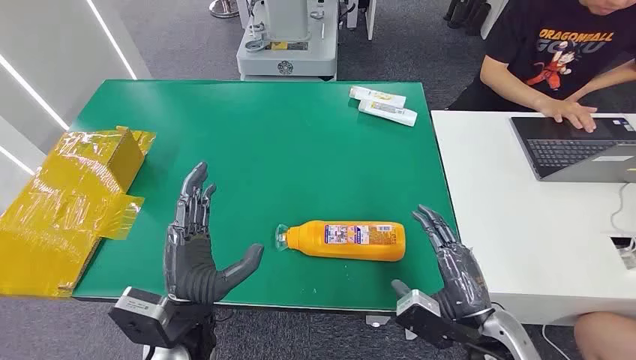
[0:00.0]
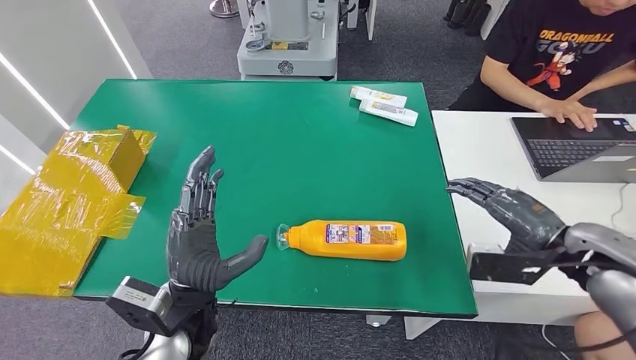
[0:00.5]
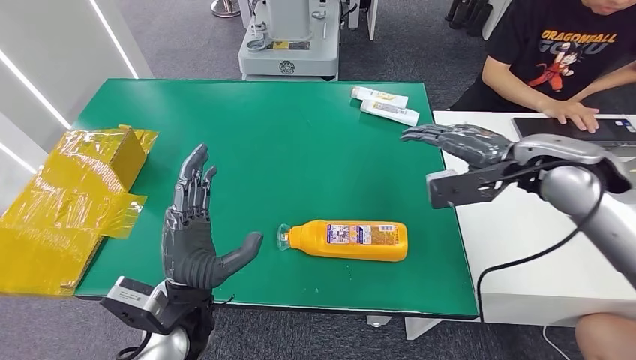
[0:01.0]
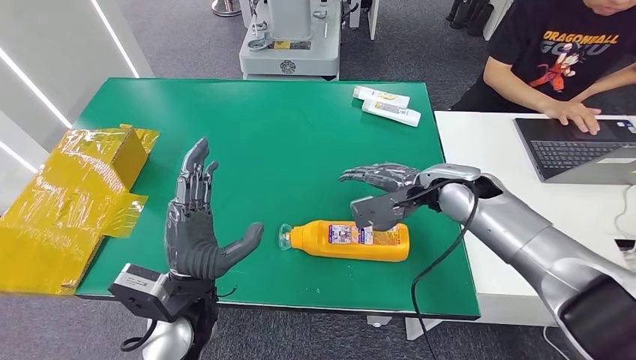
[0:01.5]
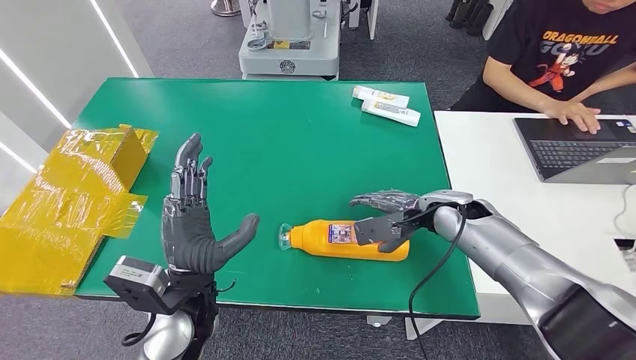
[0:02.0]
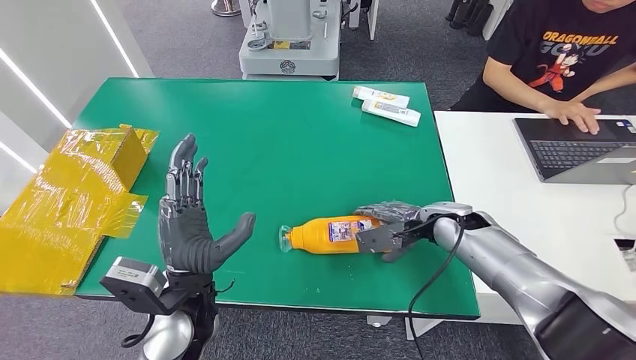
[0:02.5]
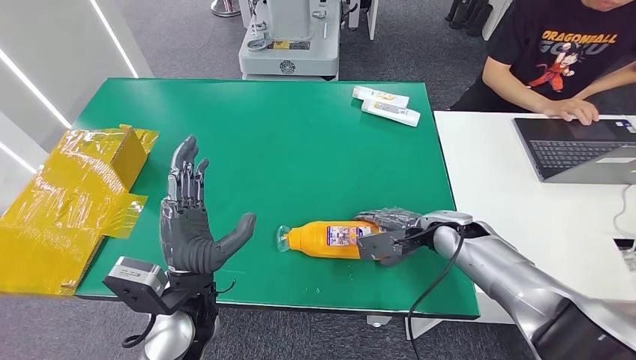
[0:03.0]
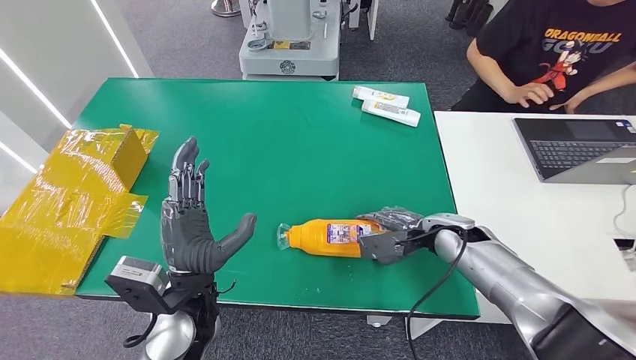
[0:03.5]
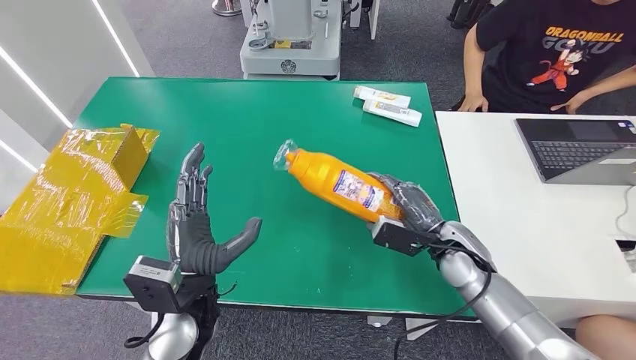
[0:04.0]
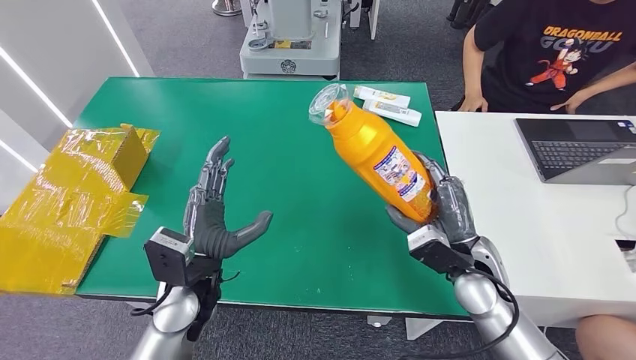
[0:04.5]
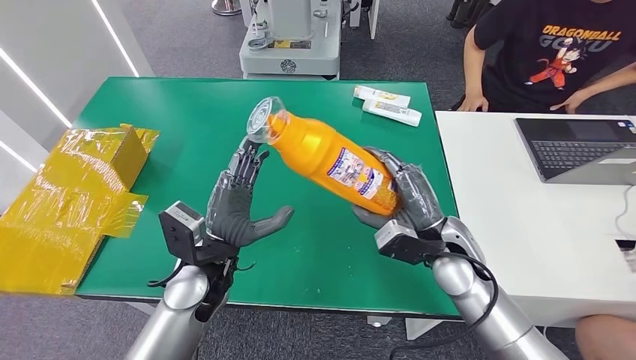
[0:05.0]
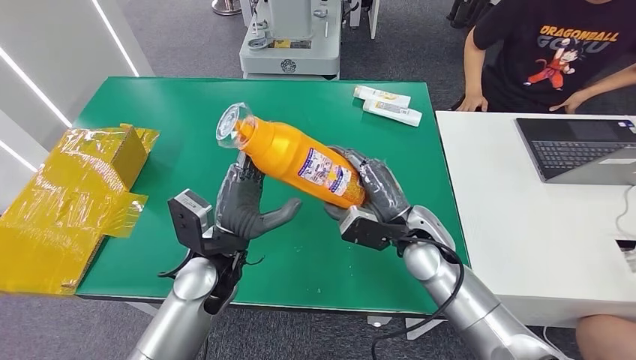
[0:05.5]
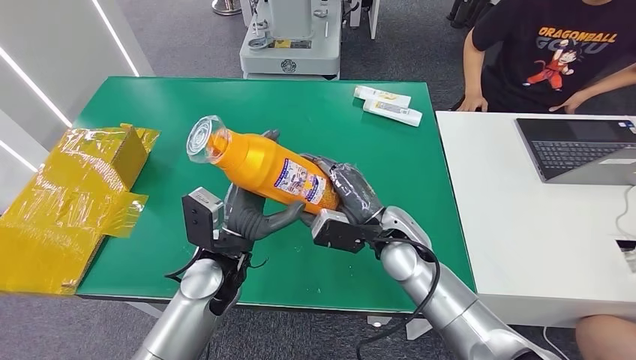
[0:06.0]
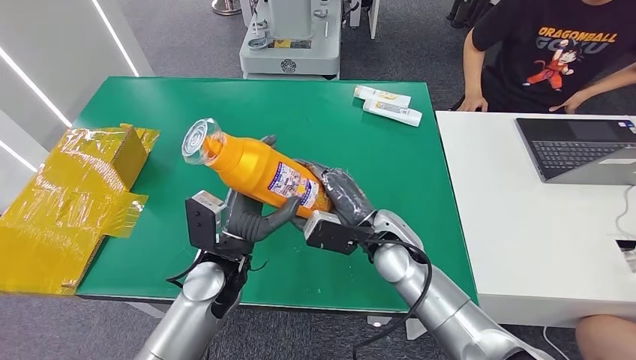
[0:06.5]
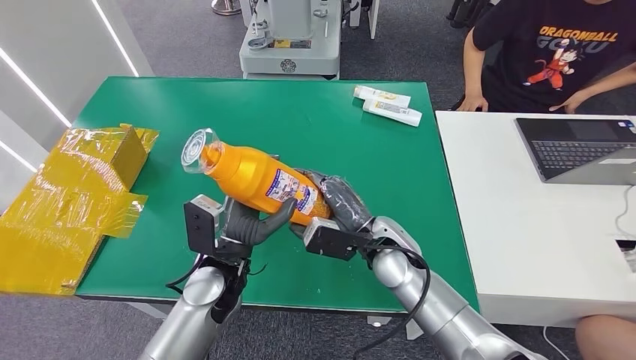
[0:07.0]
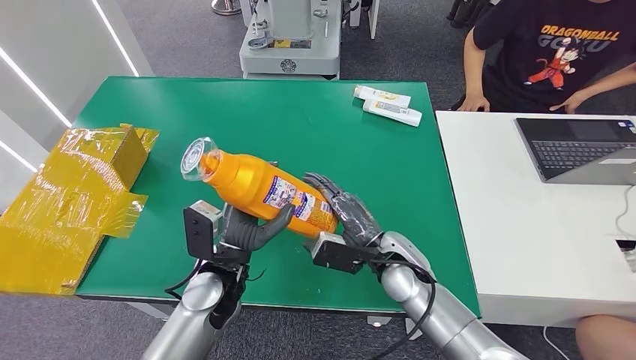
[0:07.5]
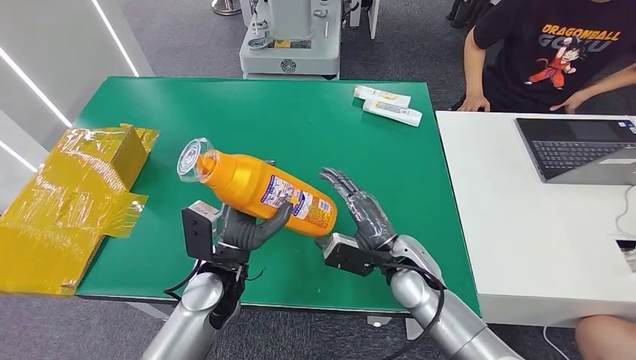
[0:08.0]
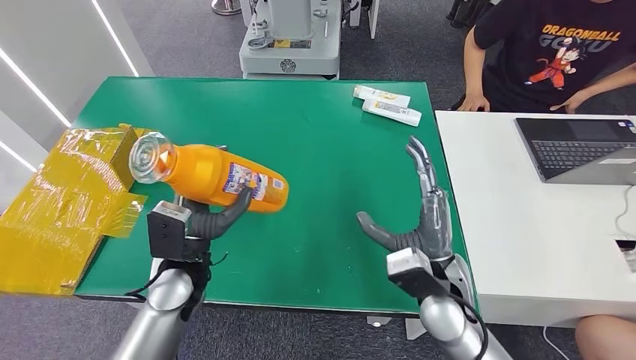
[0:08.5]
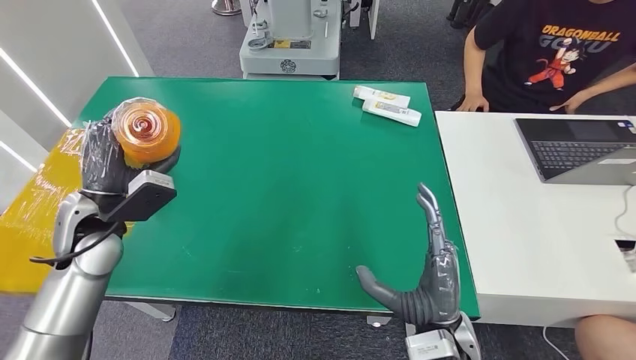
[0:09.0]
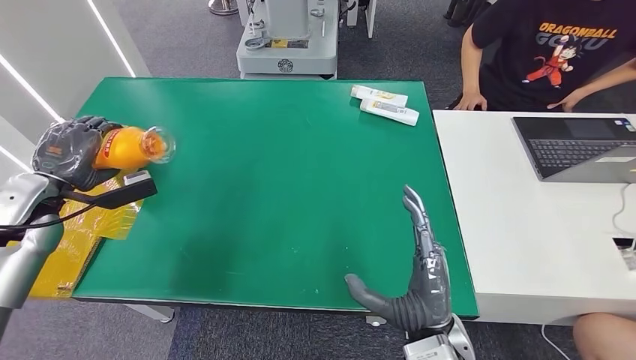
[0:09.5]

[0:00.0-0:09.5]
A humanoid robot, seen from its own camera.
Step, 0:00.0 to 0:04.0: Pick up the bottle from the table.
0:04.0 to 0:05.5: The left hand is displaced forward by roughly 5 cm; the right hand heads to the left and upward, covering about 10 cm.
0:05.5 to 0:07.5: The right hand shifts by roughly 5 cm.

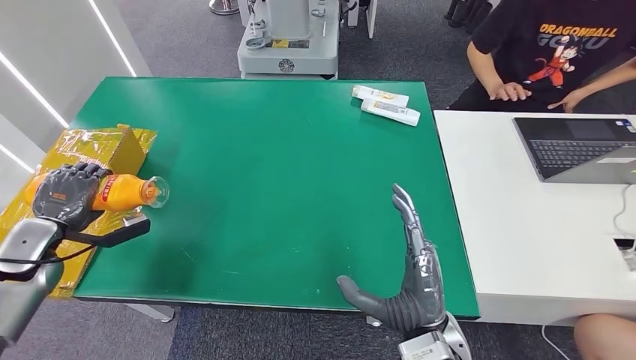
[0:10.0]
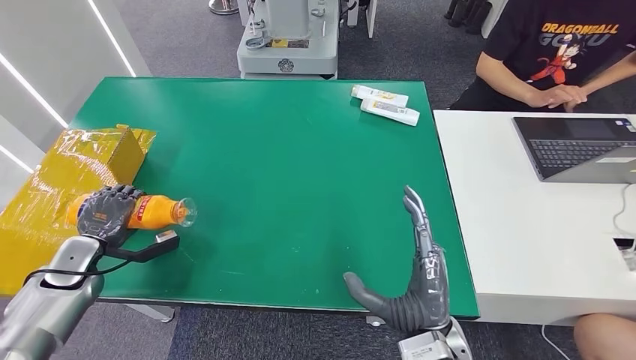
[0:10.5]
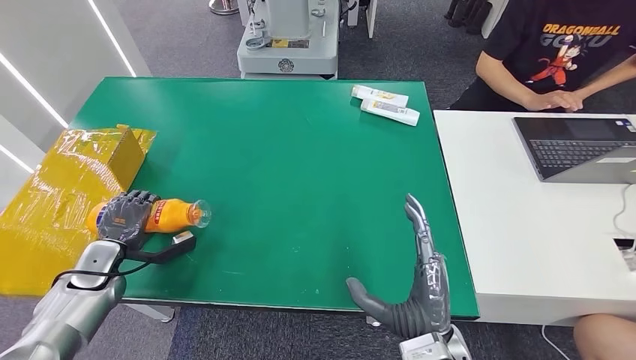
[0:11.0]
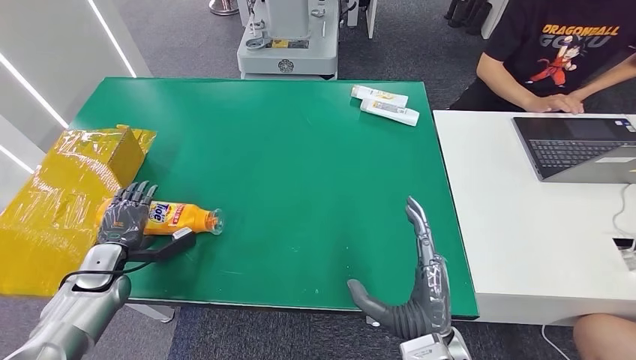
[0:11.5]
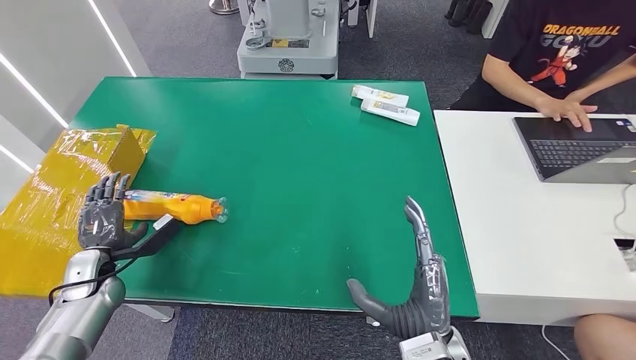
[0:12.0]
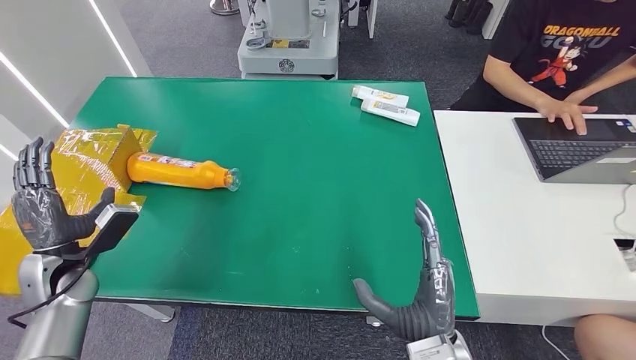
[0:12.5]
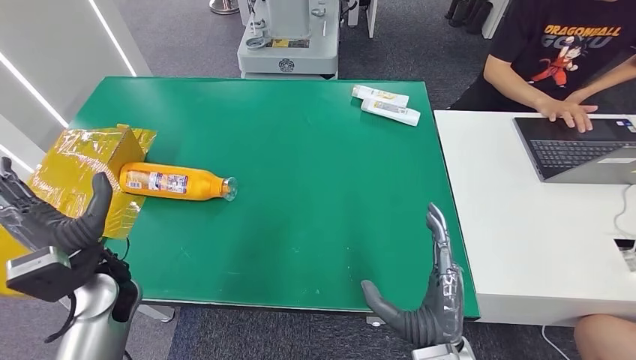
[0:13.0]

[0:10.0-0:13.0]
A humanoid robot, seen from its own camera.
Step, 0:10.0 to 0:13.0: Turn the bottle to the front side.
0:10.0 to 0:11.5: The left hand moves downward and to the right, approximately 15 cm.
0:11.5 to 0:13.0: The left hand goes approximately 15 cm upward and to the right.
